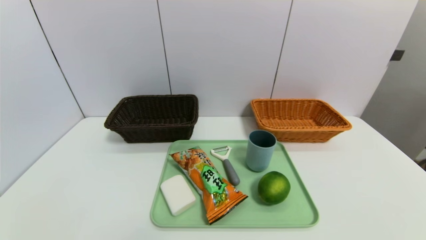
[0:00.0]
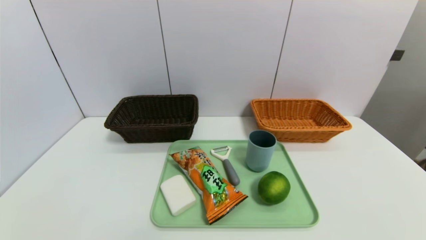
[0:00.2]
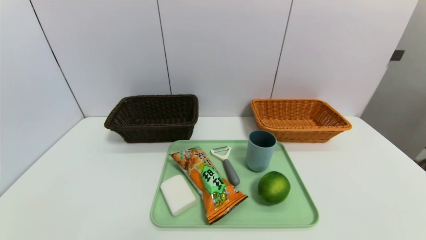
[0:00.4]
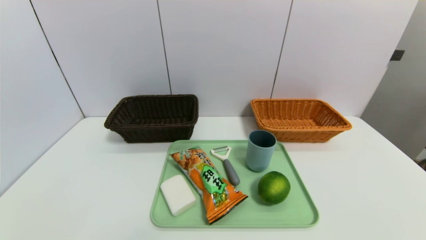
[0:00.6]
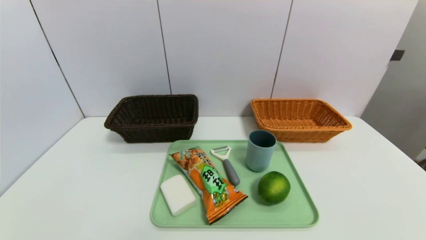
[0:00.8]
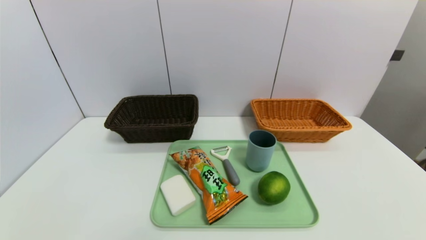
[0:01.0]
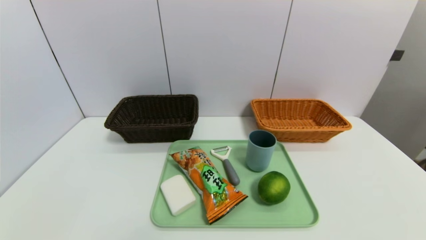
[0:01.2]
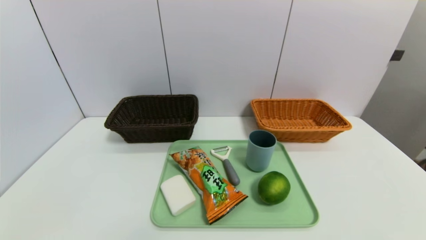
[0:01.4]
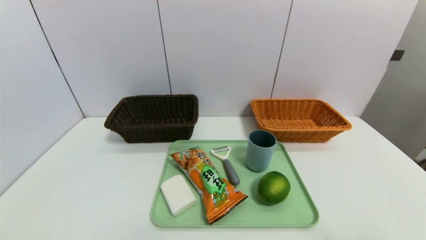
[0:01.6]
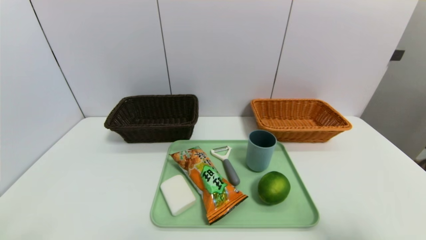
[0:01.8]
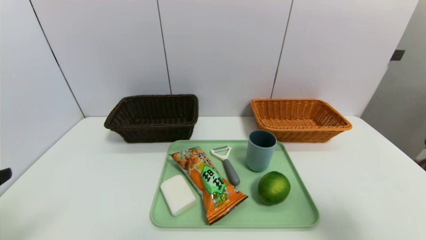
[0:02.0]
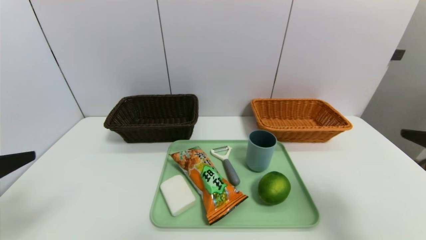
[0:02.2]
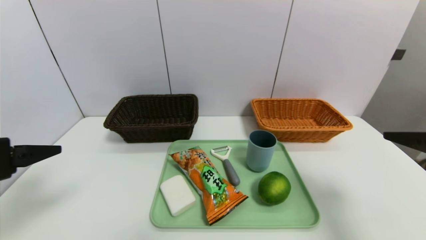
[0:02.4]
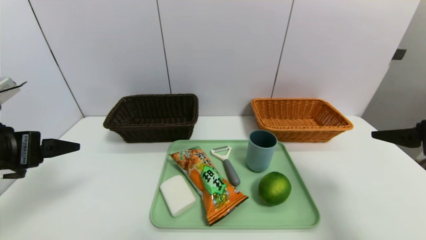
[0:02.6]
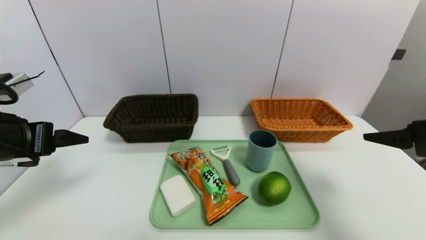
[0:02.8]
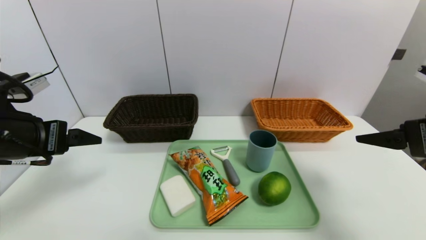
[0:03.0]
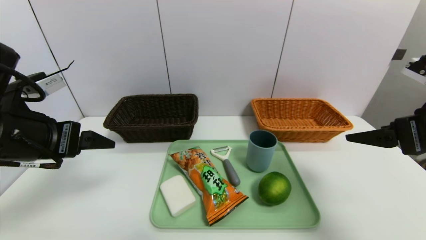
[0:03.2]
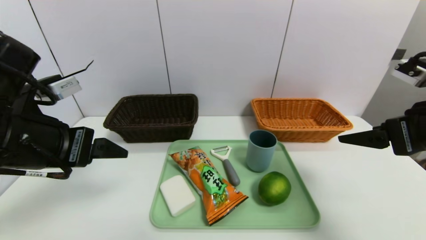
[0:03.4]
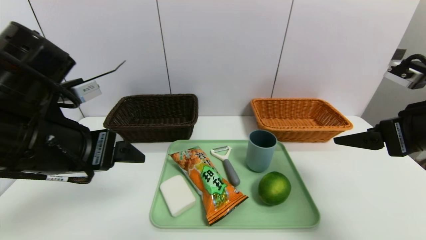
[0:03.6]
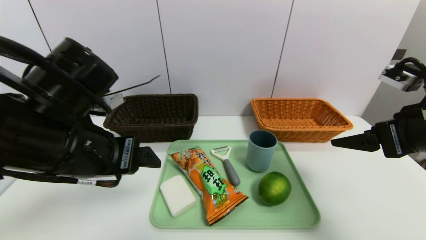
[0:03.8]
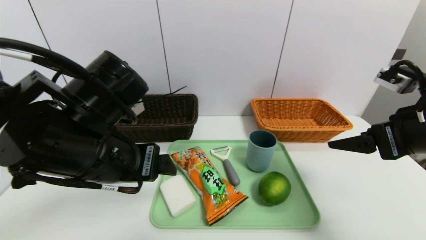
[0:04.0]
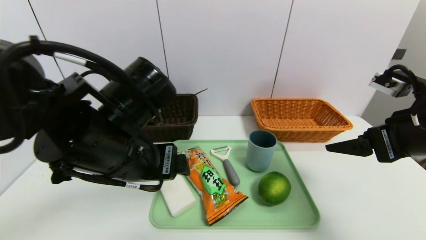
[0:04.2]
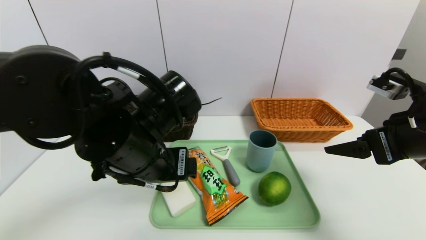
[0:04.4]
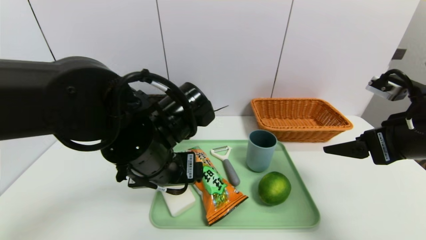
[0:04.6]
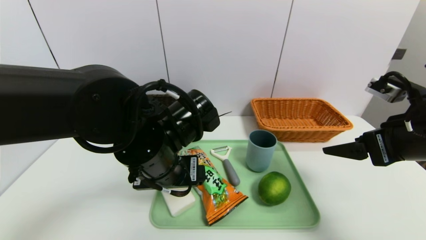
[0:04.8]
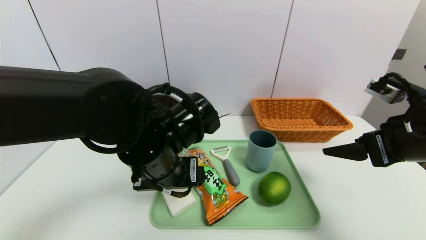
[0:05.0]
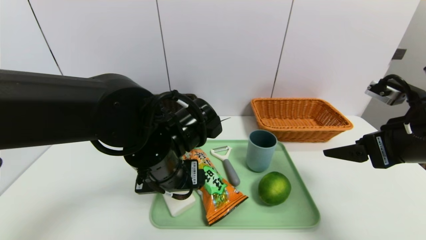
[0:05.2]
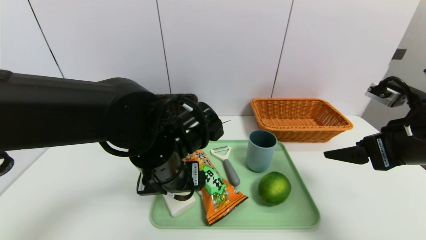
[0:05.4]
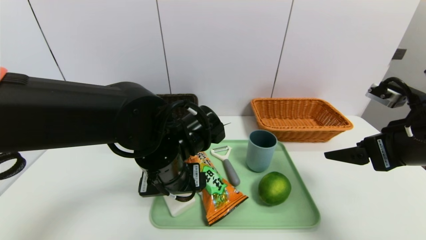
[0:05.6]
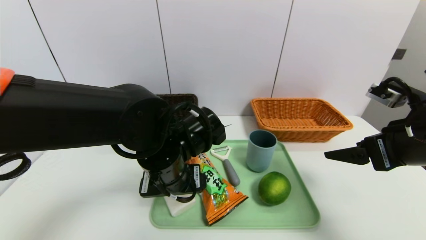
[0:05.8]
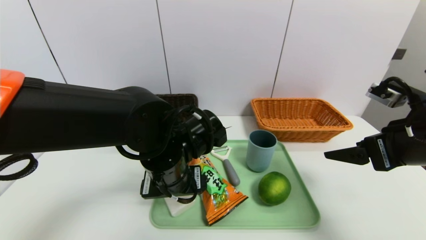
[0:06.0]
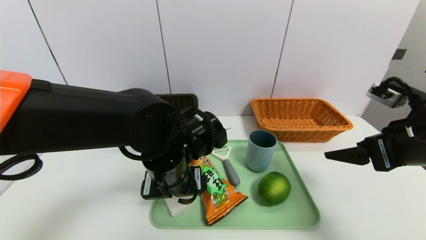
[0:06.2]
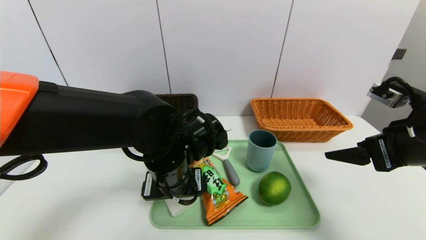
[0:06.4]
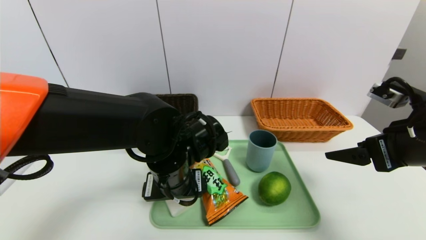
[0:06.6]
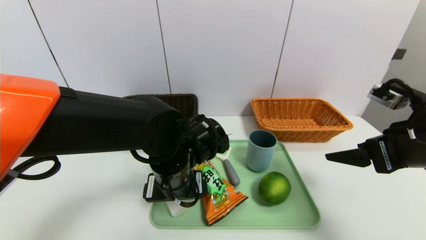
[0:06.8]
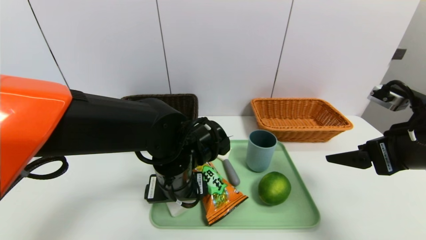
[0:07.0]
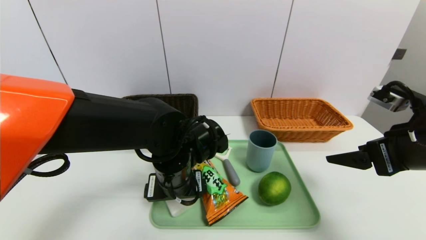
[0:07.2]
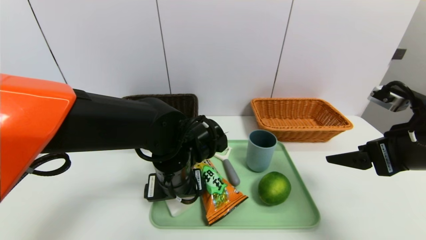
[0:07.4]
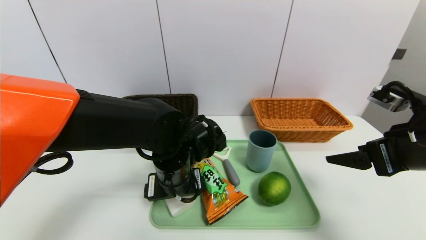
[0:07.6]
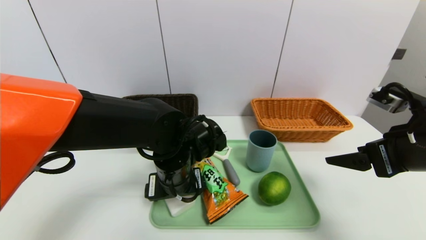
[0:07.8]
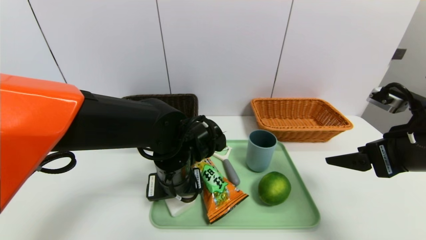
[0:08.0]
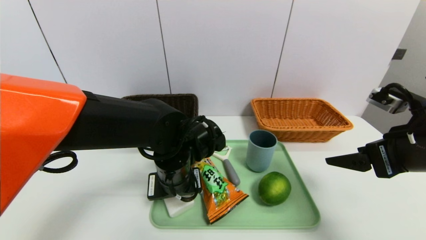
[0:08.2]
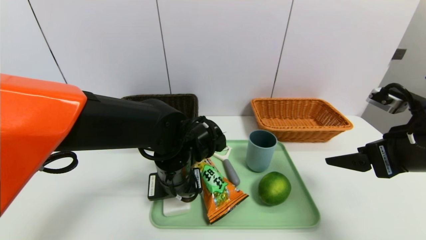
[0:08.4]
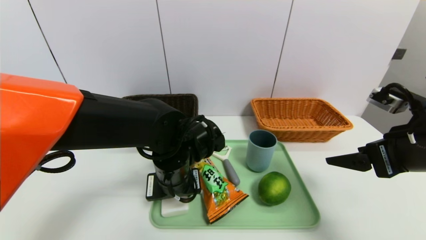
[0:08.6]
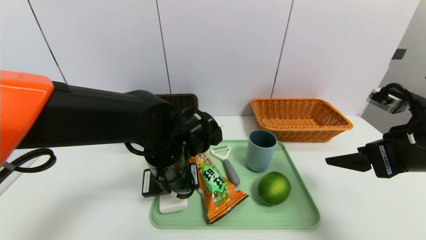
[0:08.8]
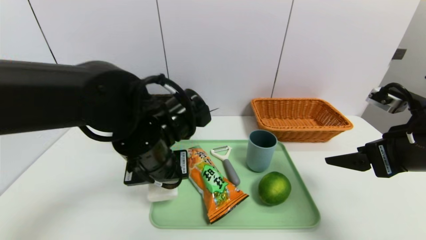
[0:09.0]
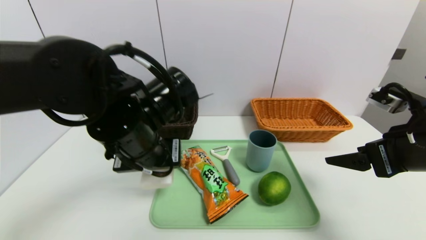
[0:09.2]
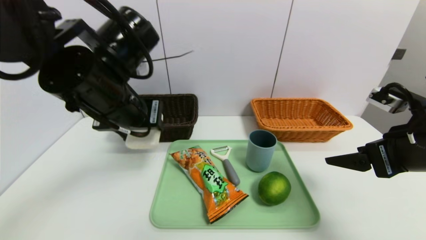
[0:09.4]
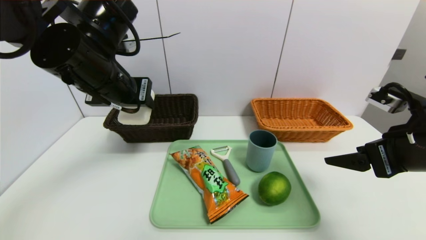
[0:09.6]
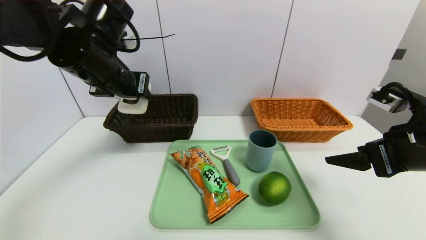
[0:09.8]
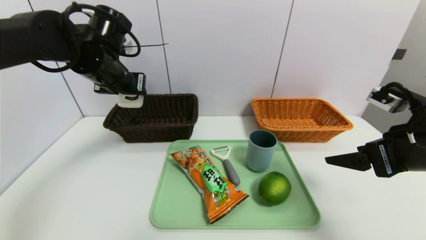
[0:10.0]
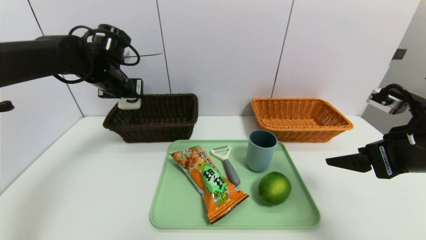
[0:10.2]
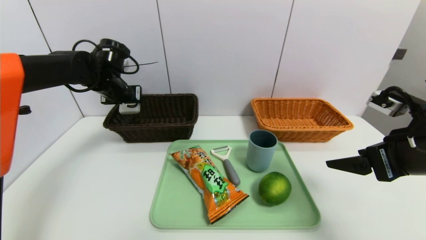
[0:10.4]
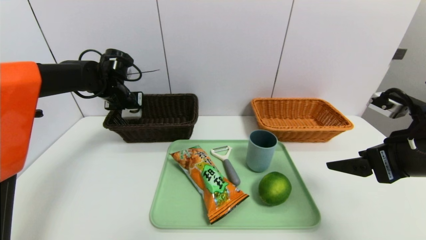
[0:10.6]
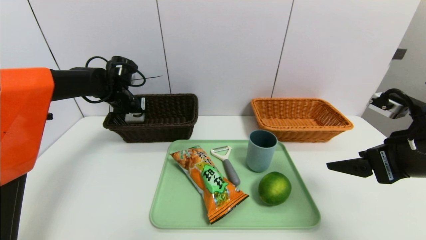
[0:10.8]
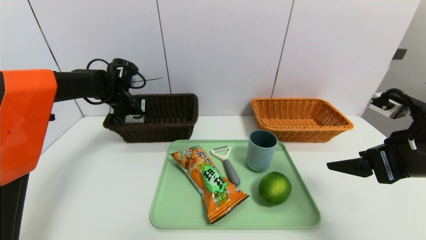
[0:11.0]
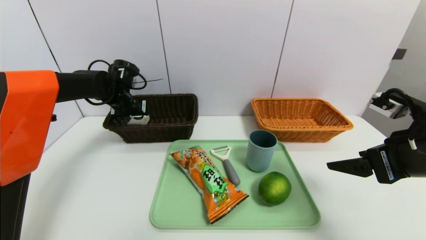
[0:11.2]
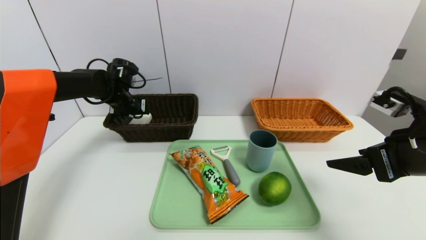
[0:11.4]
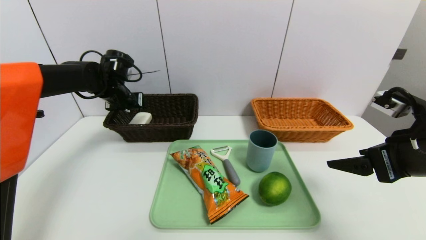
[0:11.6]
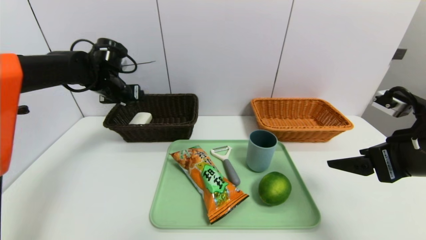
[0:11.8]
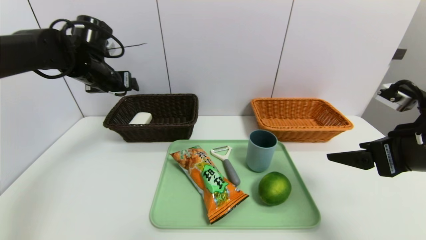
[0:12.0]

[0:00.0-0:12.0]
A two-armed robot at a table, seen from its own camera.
Task of the whole recording: place the food in the right basket with the right gripper, and place the non food items in the left basket with the left gripper.
Step, 0:00.0 to 0:11.6: Grasp the soap and put it in the left basket.
0:01.6 to 0:03.0: Both grippers travel together forward, some 20 cm.
0:03.0 to 0:04.4: The left gripper goes some 20 cm to the right.
0:04.4 to 0:06.0: The left gripper is displaced downward by roughly 5 cm.
0:06.0 to 0:07.6: The grippers move only a little.
0:07.6 to 0:09.0: The left gripper is displaced upward by some 5 cm, and closes up.
0:09.0 to 0:10.4: The left gripper travels forward and to the left by some 25 cm.
0:10.4 to 0:12.0: The left gripper moves upward, about 5 cm, and opens up.

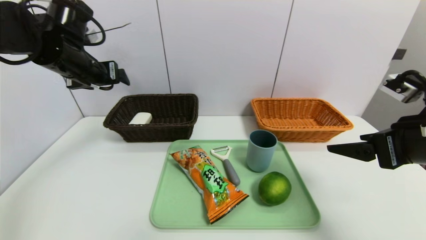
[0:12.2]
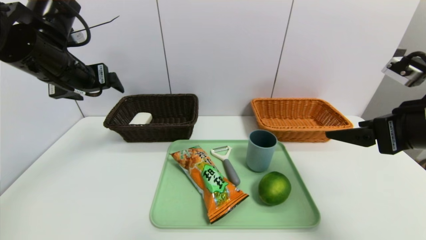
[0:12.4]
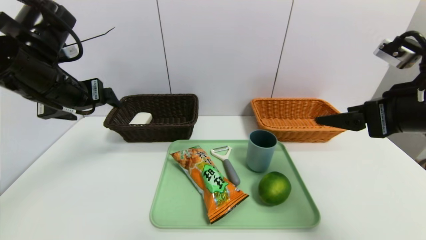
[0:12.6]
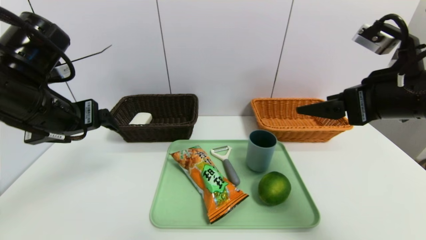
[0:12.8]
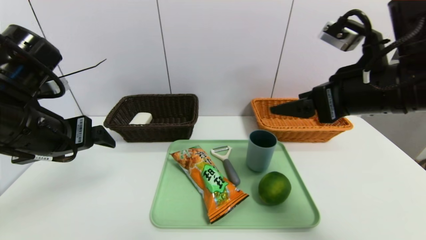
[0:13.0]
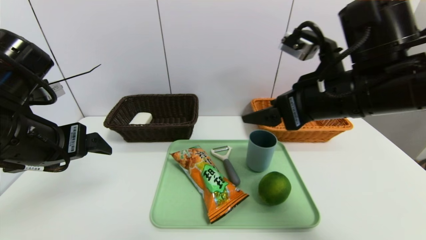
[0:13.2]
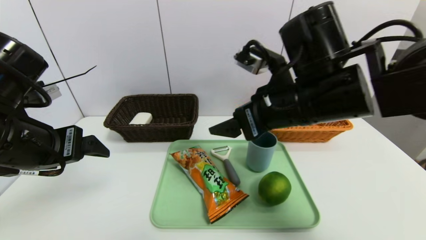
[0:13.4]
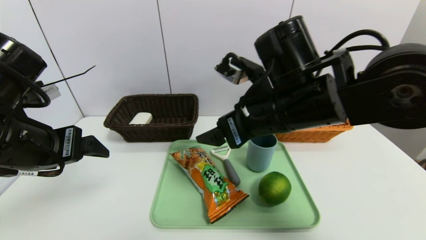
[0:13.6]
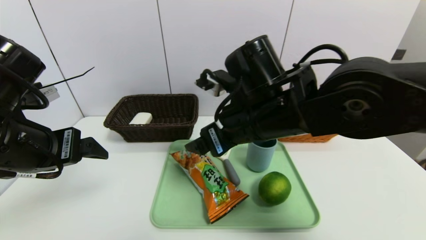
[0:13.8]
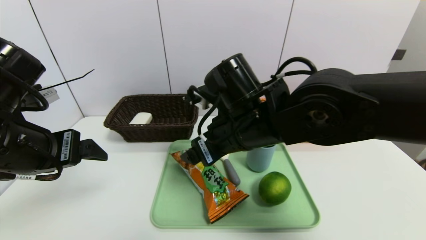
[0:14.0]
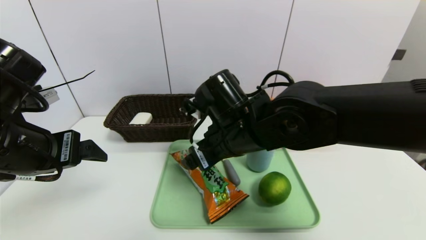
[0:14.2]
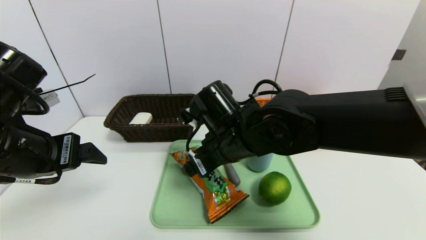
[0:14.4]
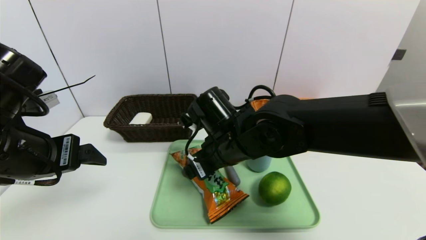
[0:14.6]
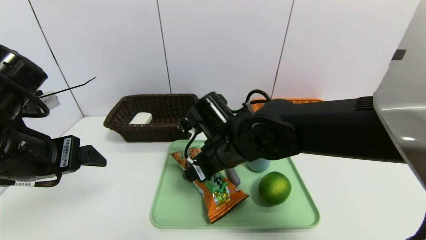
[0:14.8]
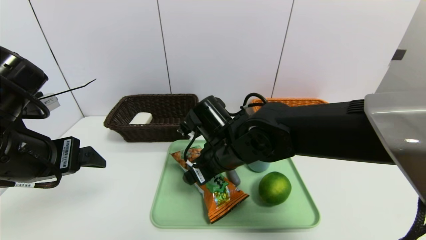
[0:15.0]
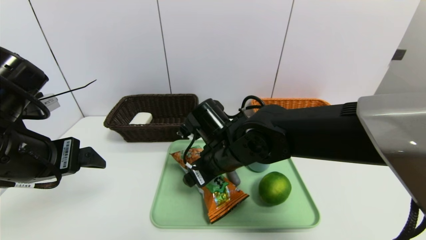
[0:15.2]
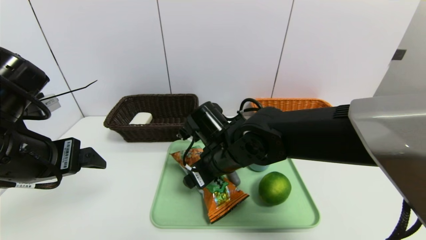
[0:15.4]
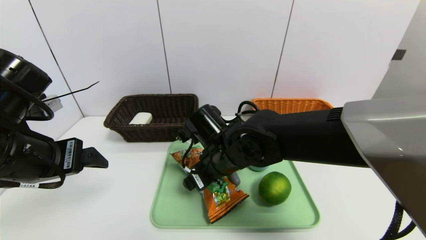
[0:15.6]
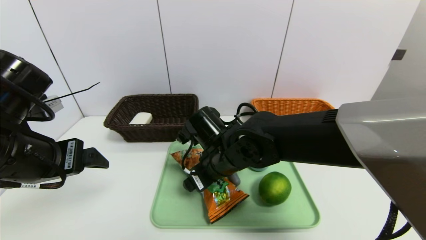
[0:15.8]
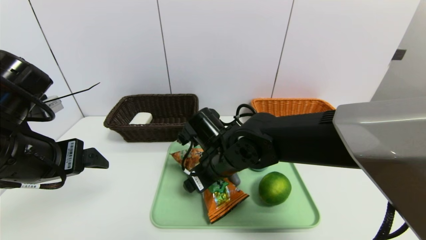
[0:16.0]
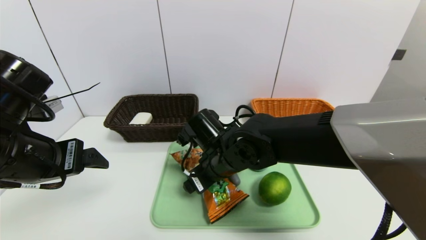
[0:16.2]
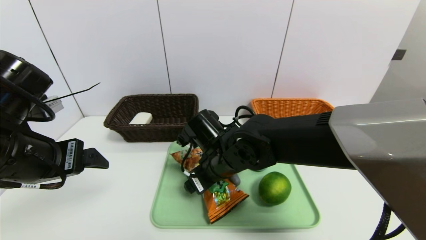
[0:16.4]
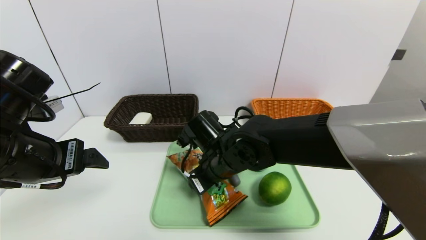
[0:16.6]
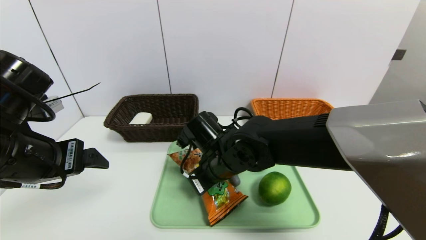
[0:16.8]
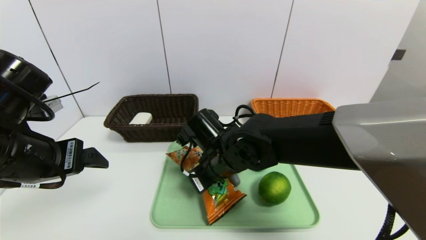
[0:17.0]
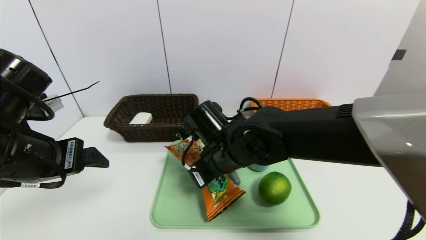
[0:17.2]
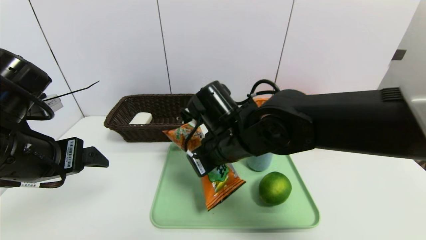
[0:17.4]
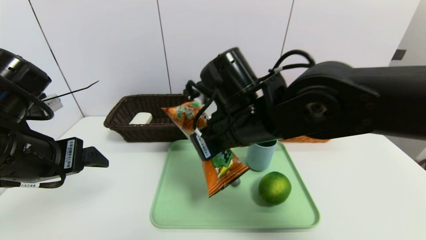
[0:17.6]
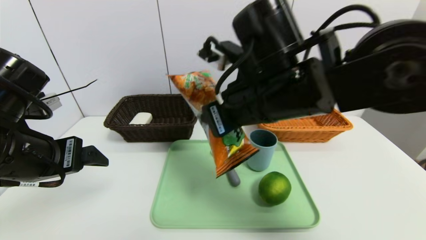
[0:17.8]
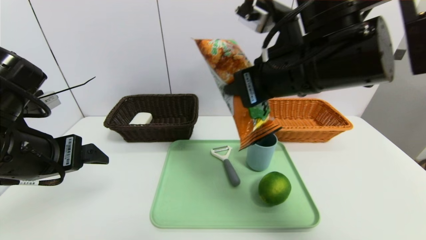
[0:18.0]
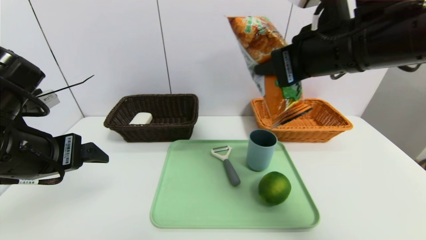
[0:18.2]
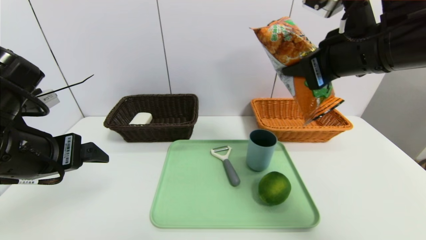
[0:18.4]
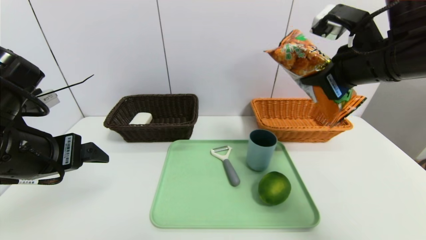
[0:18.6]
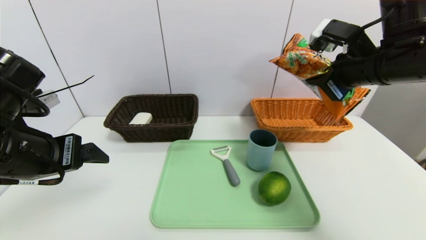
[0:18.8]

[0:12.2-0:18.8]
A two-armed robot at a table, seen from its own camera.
Task of the whole recording: place the food in the right basket with the right gripper, and place the non food items in the left basket with the left gripper.
0:12.2 to 0:13.8: The right gripper moves to the left, about 25 cm. Meanwhile the left gripper shifts roughly 15 cm backward.
0:13.8 to 0:15.4: The right gripper travels downward by about 10 cm.
0:15.4 to 0:17.2: The right gripper closes up.
0:17.2 to 0:18.8: The right gripper travels to the right and upward by about 30 cm.
